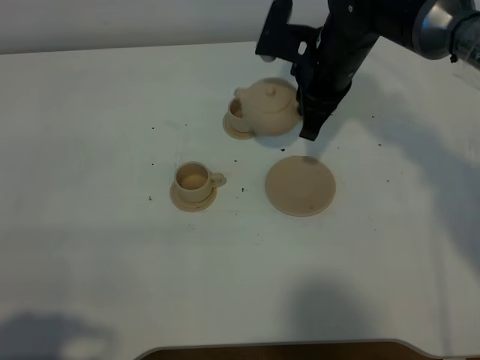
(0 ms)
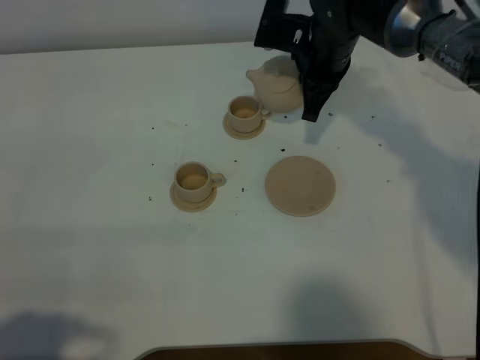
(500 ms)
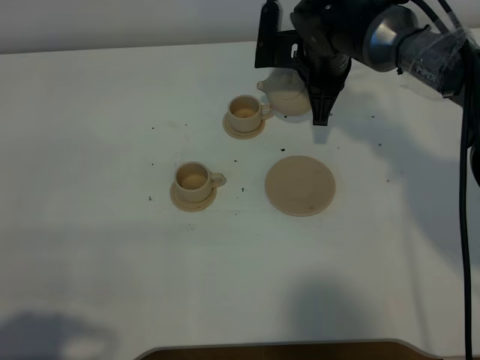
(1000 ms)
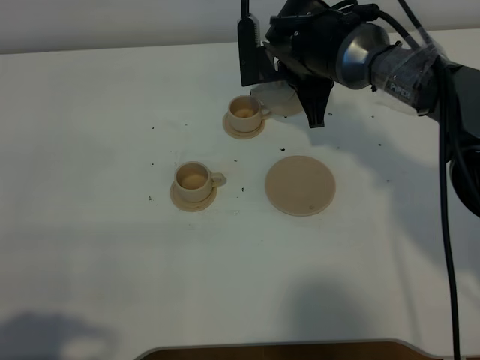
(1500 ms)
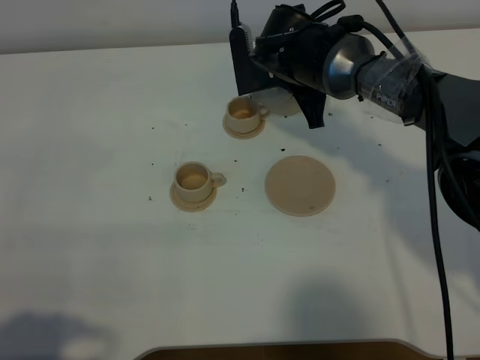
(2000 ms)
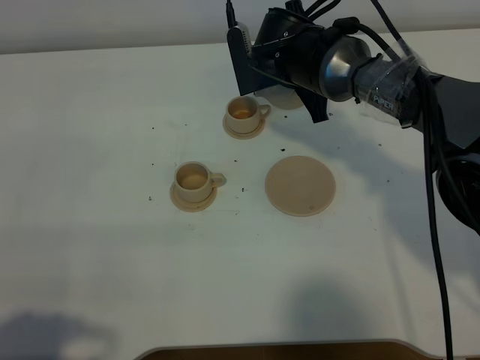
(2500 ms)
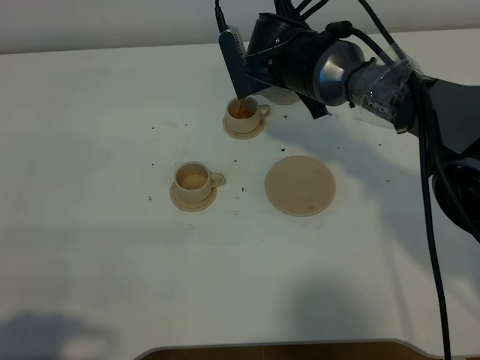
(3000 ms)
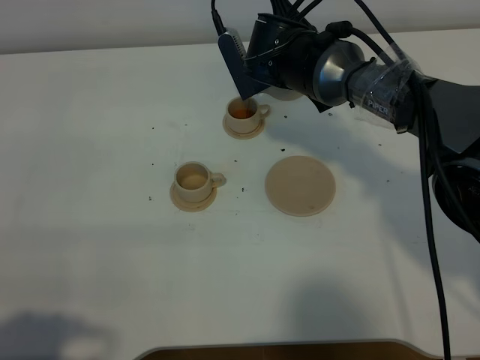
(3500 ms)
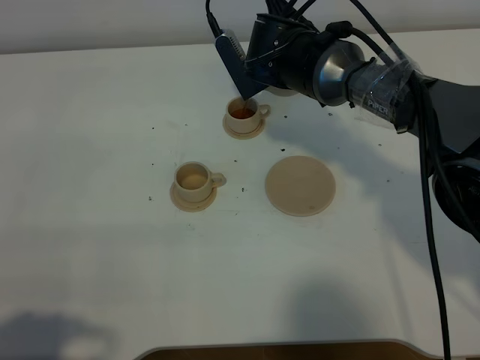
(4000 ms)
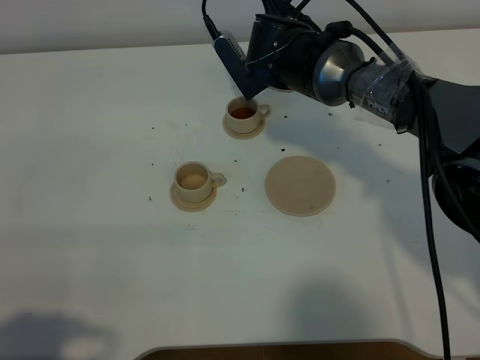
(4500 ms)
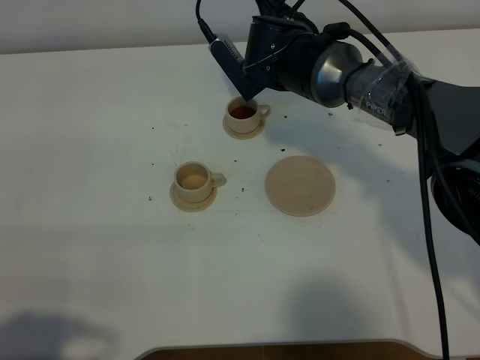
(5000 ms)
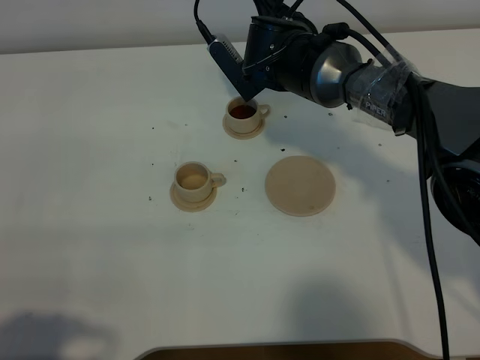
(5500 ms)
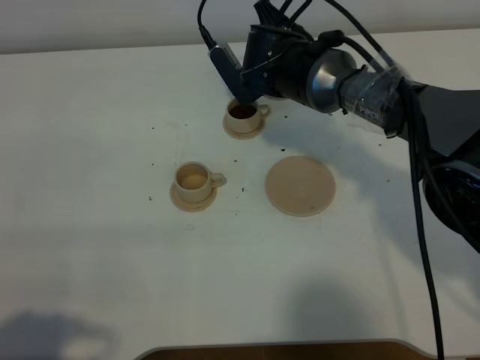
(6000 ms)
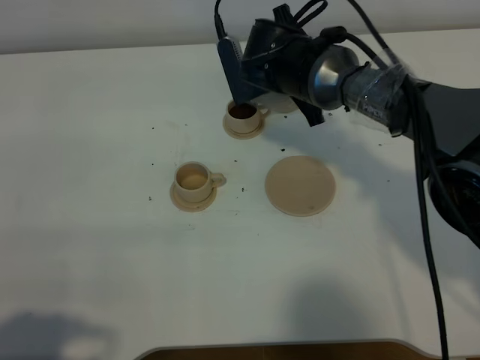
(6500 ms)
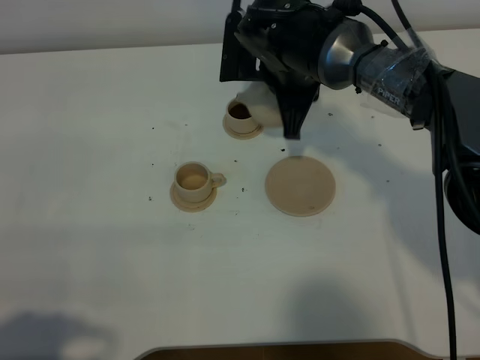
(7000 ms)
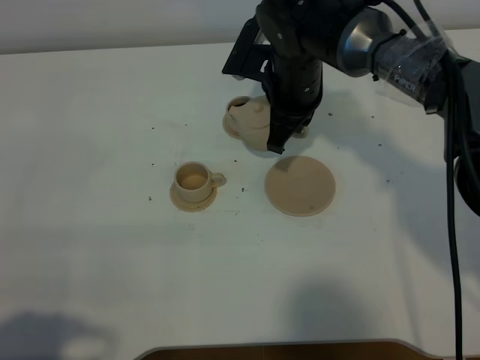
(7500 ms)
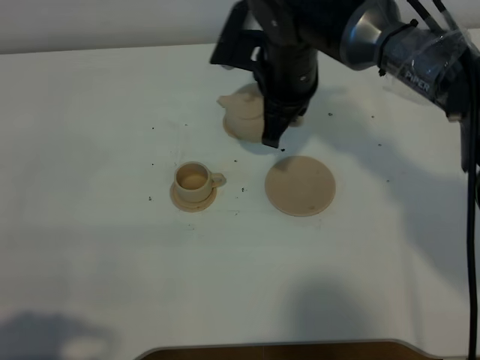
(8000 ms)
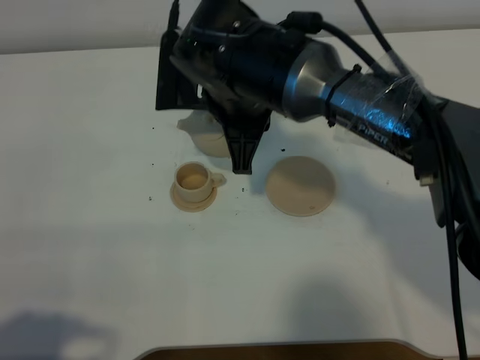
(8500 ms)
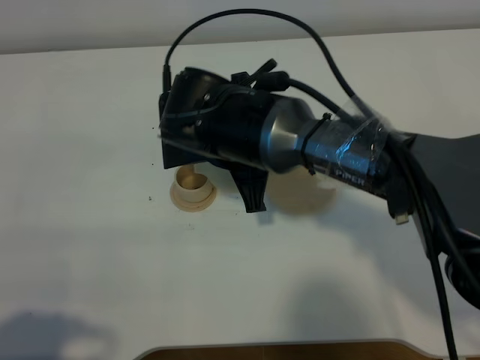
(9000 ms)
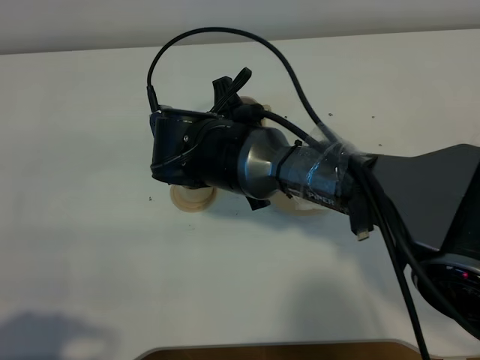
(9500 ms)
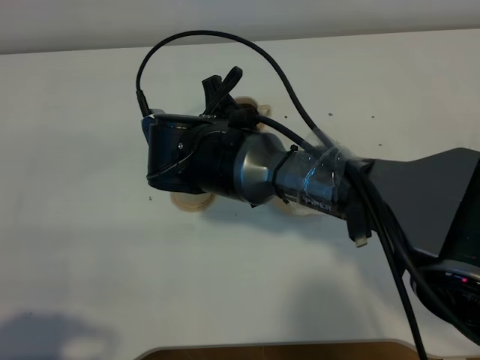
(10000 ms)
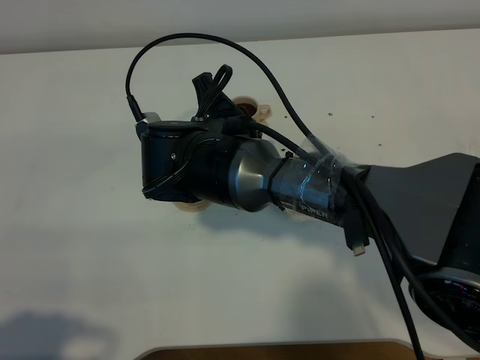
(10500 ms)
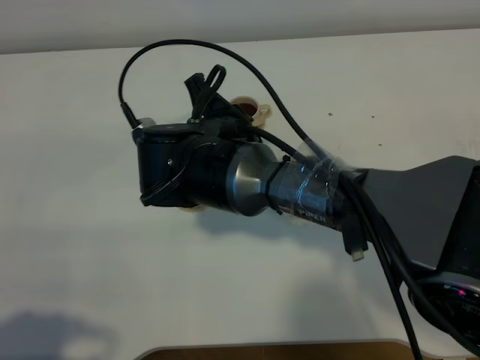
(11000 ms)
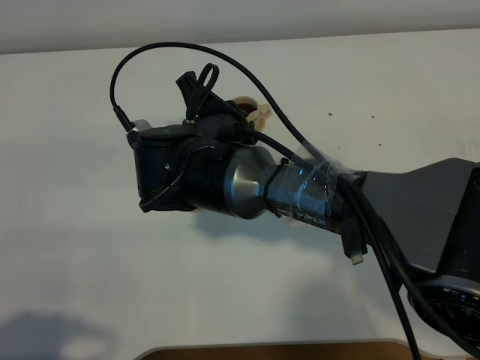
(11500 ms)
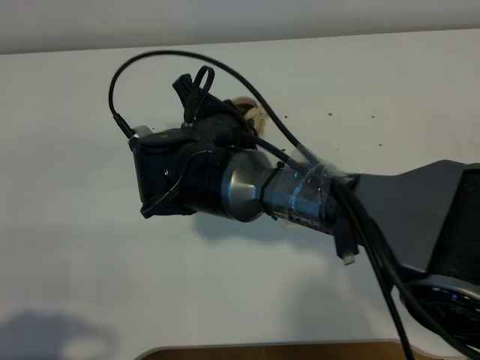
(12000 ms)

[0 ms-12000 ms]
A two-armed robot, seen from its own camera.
Task of the whole recording: grasp the brown teapot and pour the tea into the two brown teacups one by one, put the brown teapot back in its original place.
0 ms to 2000 ms: The right gripper ends up approximately 5 cm from where it was.
4000 ms to 6000 ms: There are only small adjustments of the grippers.
6000 ms to 8000 ms: The right gripper shifts approximately 10 cm backward and upward.
8000 ms to 10000 ms: The right gripper is displaced backward, to the left and downward by some 10 cm.
10000 ms to 12000 ms: The grippers stay close to where they were, moving slightly.

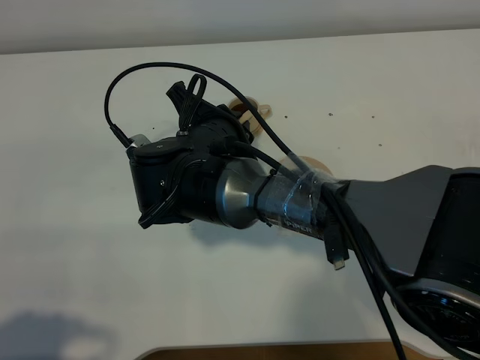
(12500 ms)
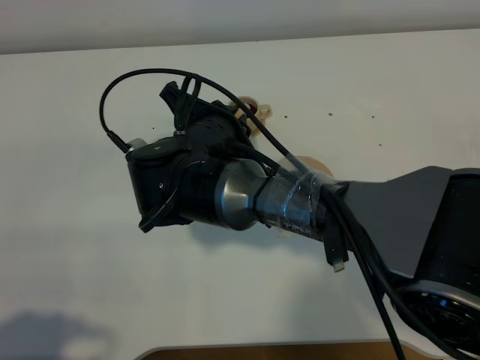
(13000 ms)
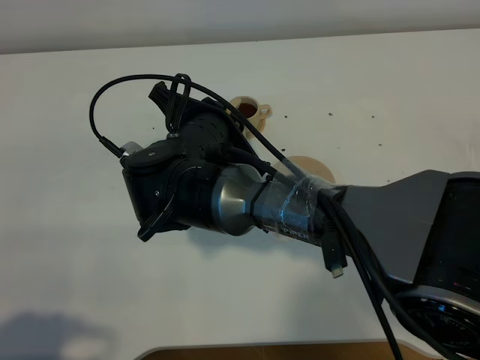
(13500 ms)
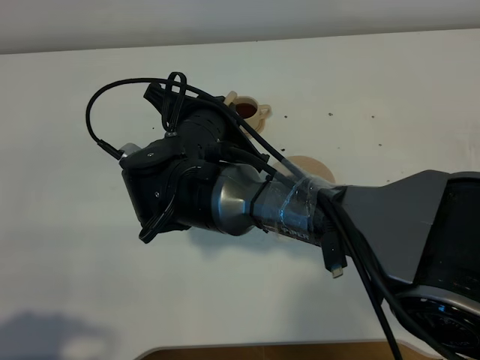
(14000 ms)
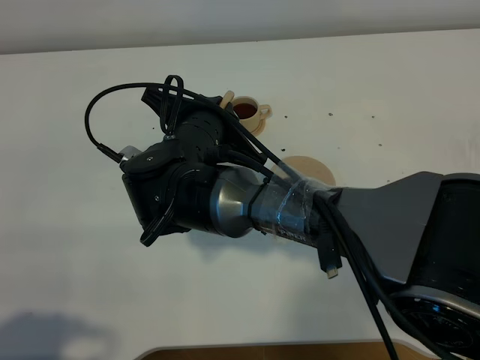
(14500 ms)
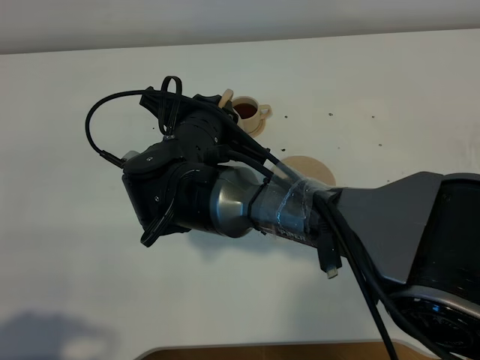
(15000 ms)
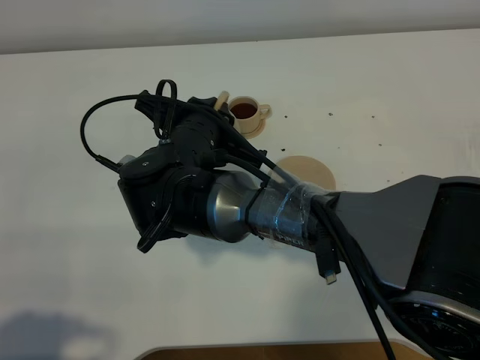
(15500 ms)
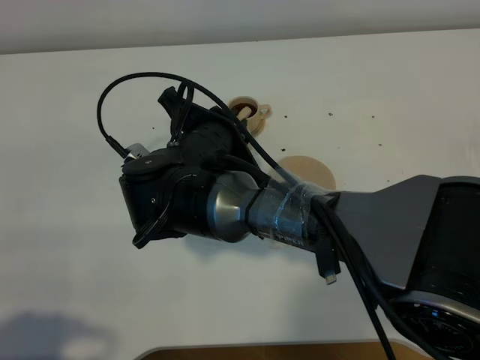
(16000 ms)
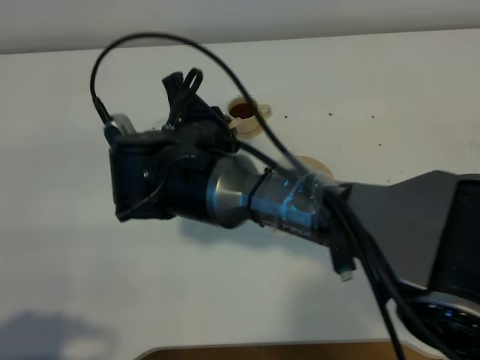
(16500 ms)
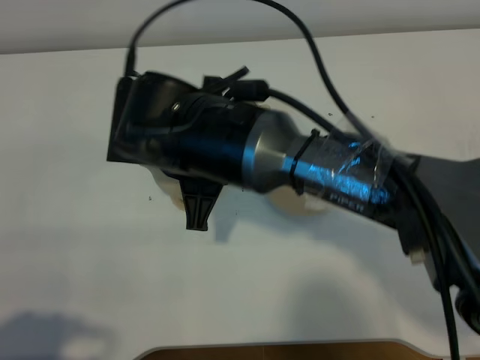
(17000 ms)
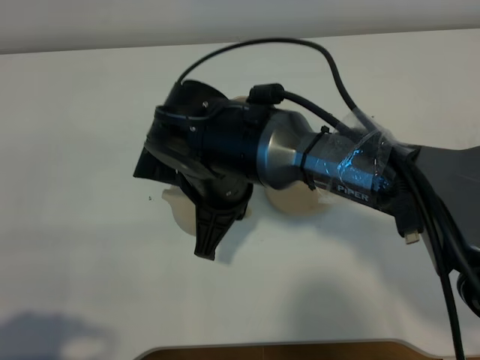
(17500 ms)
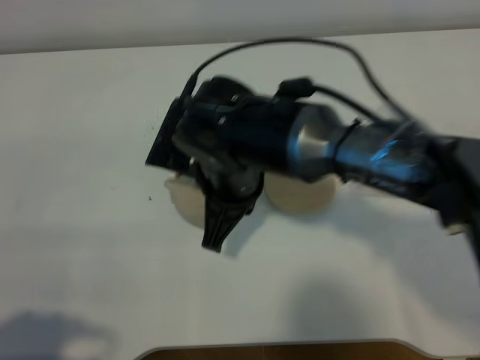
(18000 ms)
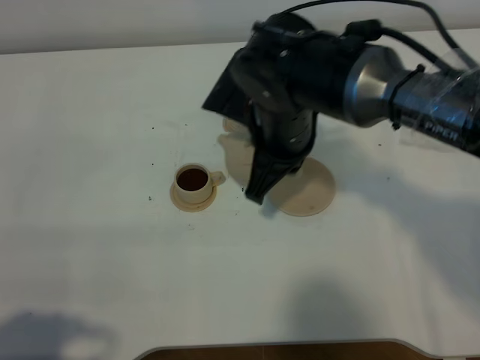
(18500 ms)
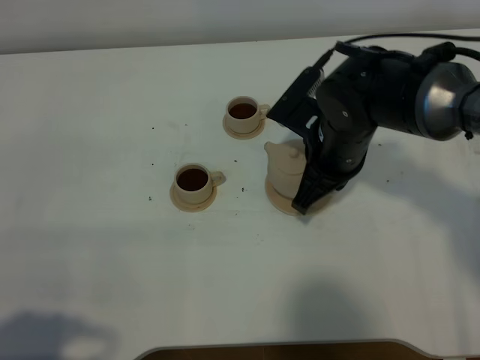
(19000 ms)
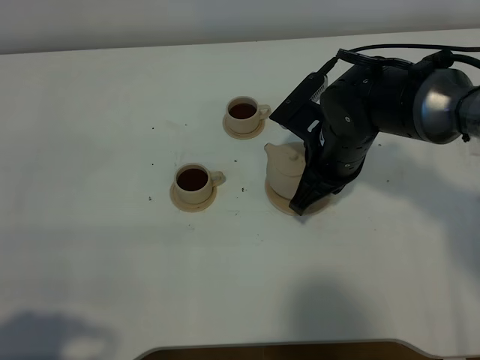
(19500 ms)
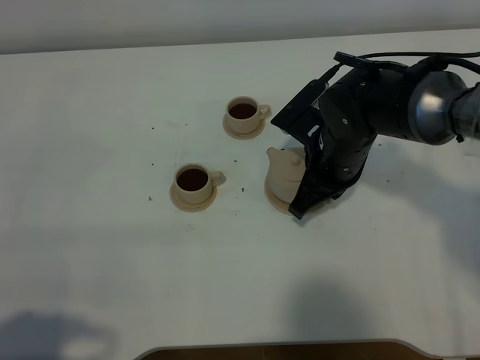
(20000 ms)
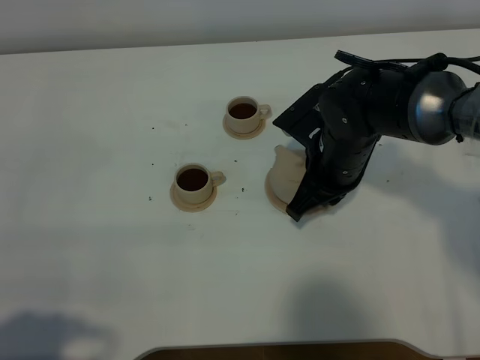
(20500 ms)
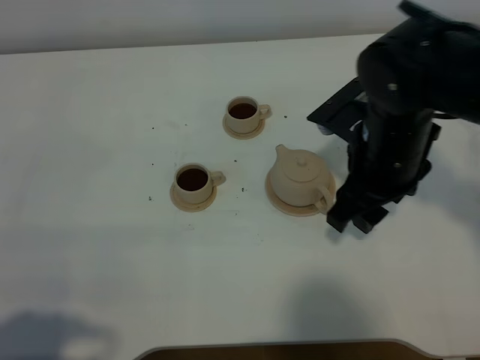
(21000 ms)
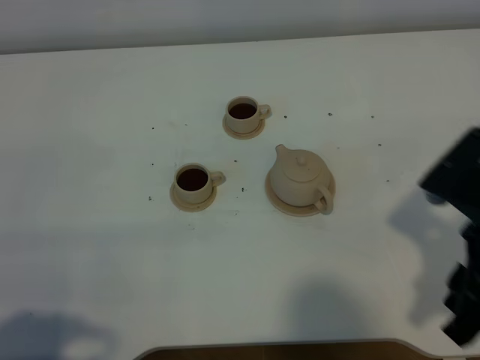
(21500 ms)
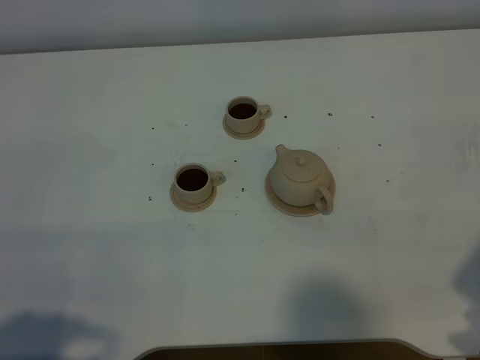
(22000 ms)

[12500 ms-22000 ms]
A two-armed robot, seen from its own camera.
Task of the whole recording: grasp the brown teapot and pour the tea into the two brown teacups one by one, put the brown teapot back in its original place.
Step, 12500 ms to 16500 ms: Pour tea into the teacup with the right gripper.
12500 ms to 14500 ms: There are only small adjustments of the grippers.
18000 ms to 20000 ms: The right gripper is displaced to the right, forward and downward by about 15 cm.
20000 ms to 22000 ms: The right gripper goes about 30 cm backward and to the right, and opens its fingers.

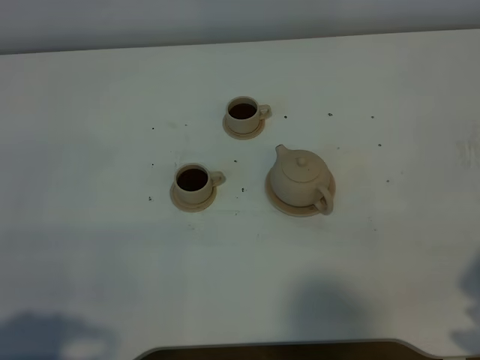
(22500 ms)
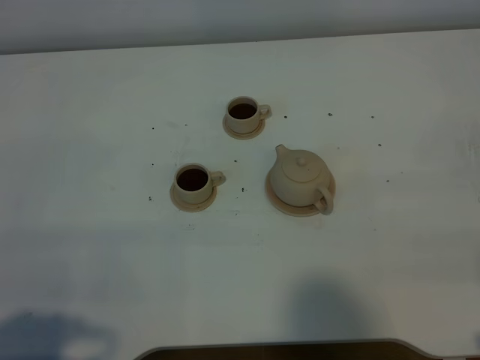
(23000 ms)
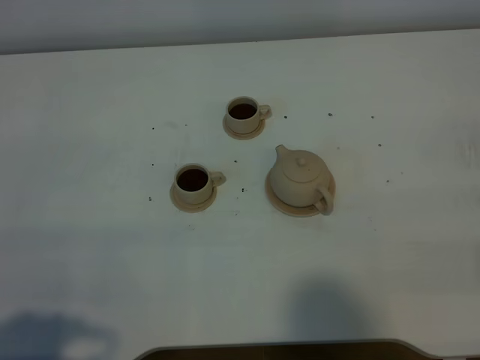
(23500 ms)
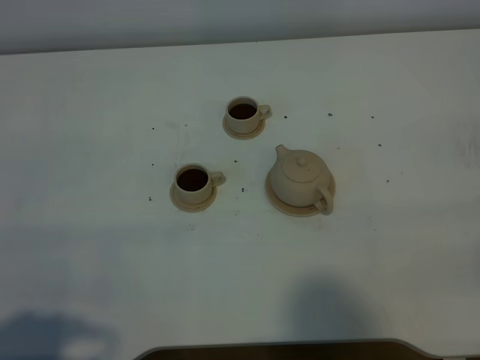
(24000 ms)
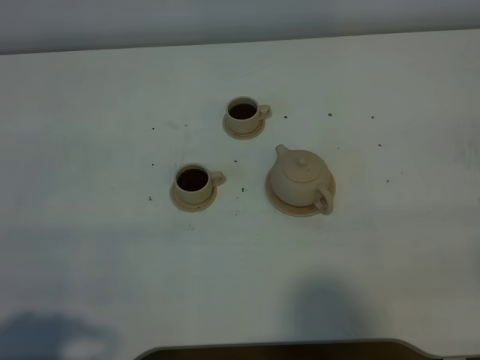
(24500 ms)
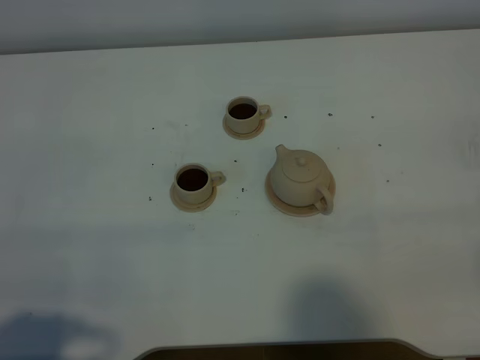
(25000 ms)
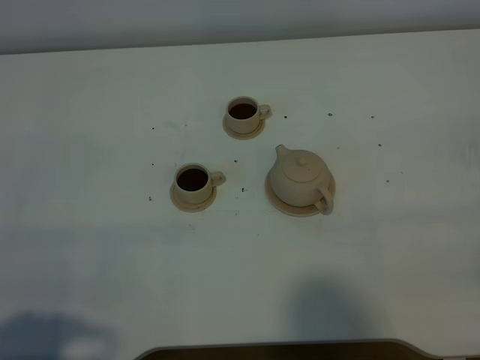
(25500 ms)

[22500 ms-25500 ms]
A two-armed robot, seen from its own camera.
Task of the whole recording: grasp the brown teapot and pour the tea into the two brown teacups one by one, put the brown teapot back in its original place.
24000 ms to 25500 ms: The two grippers keep their place.
